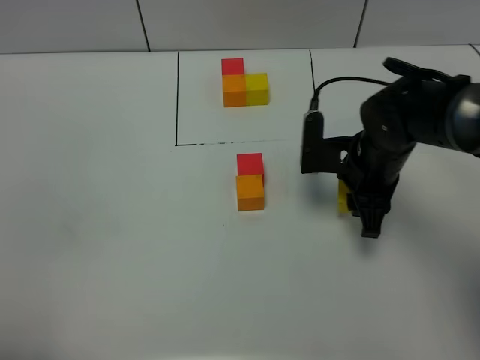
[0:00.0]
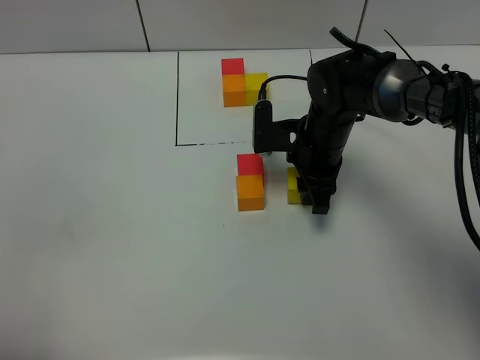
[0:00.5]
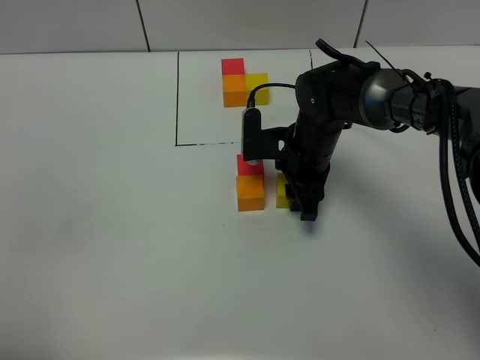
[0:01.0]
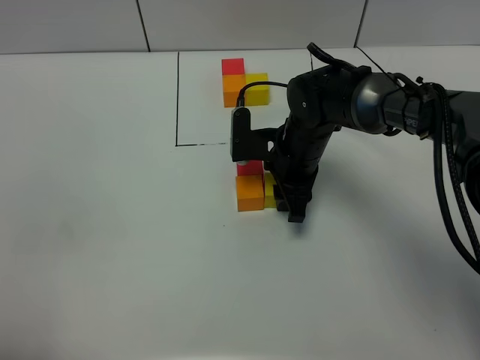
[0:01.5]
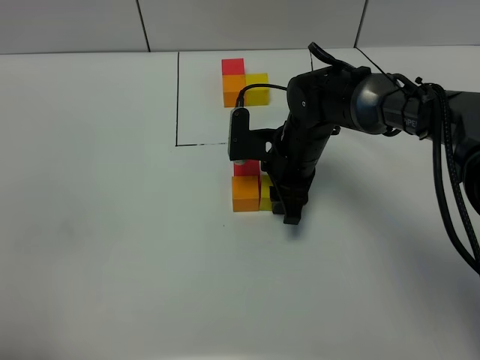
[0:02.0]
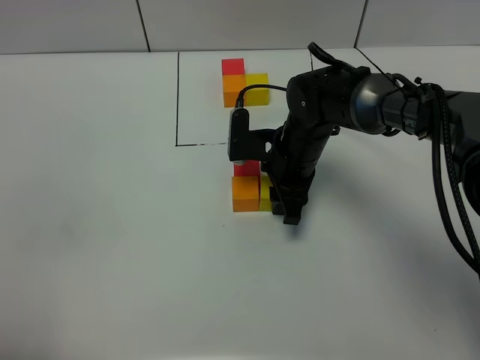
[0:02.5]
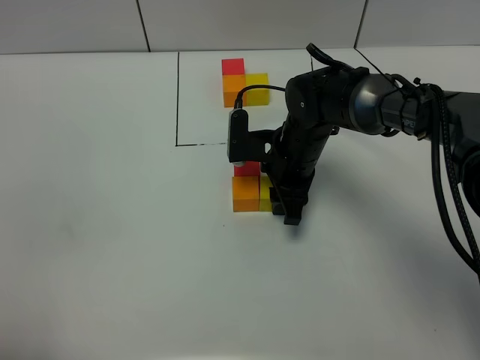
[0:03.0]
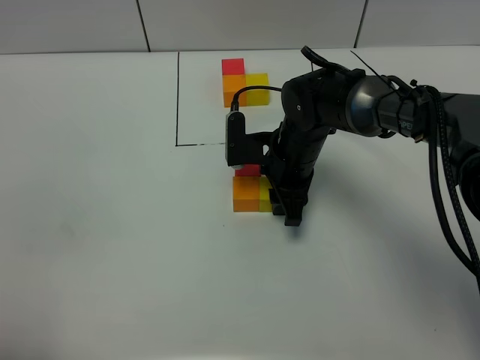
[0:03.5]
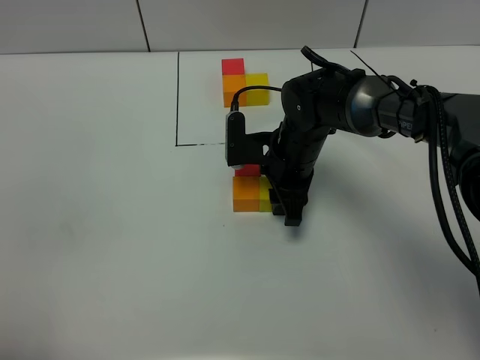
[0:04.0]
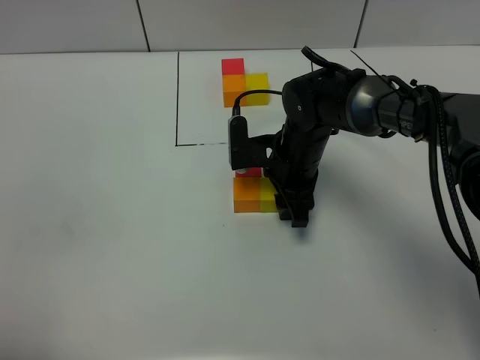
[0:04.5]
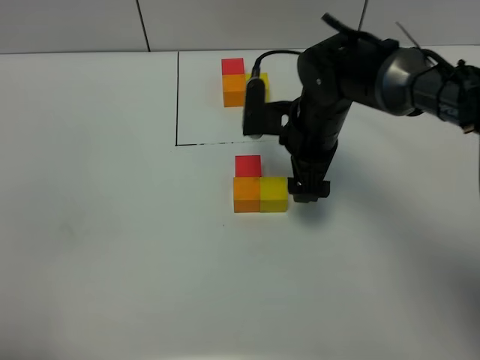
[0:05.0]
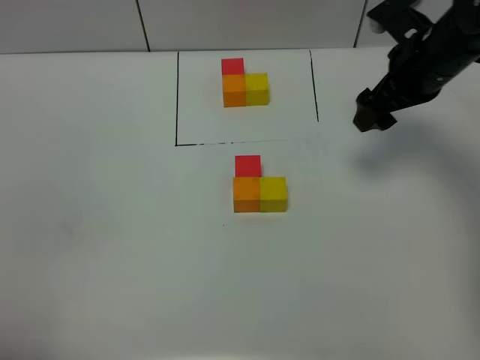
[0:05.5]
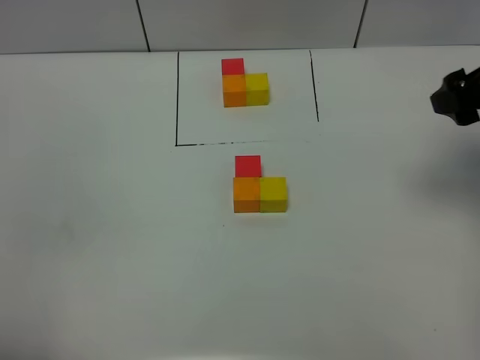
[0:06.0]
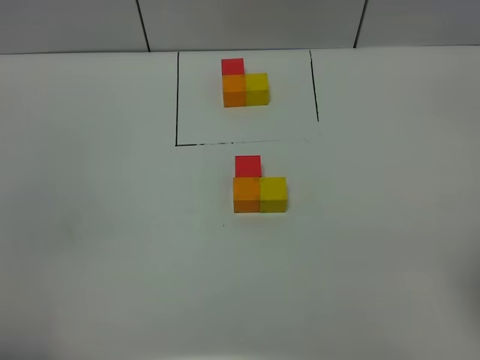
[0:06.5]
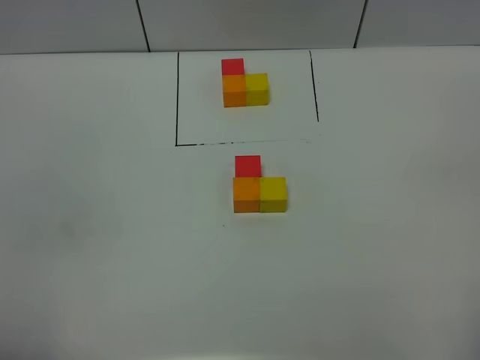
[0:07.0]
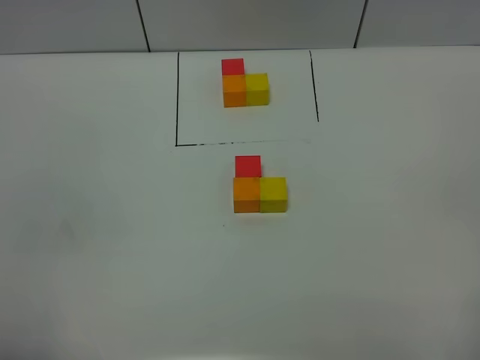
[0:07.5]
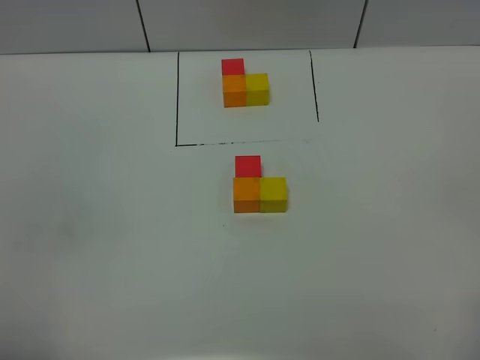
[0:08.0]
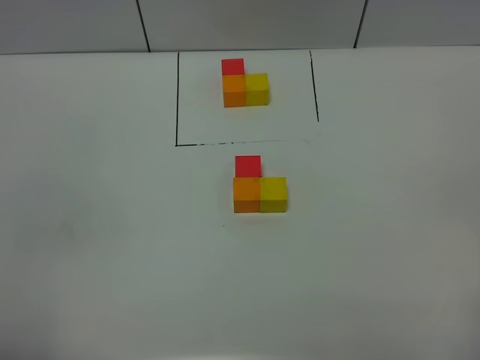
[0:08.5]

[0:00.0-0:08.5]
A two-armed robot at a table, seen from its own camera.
Task of the whole recording: According to the building block template in front, assemble the scattered blocks together.
Step, 0:00.0 to 0:04.0: Put the yellow build block on the right of the orange build block.
0:00.0 to 0:02.0: The right gripper heads to the left, covering some 10 cm.
0:02.0 to 0:04.0: Neither gripper changes place.
0:04.0 to 0:06.5: The right gripper shifts about 40 cm backward, to the right and upward, and opens.
